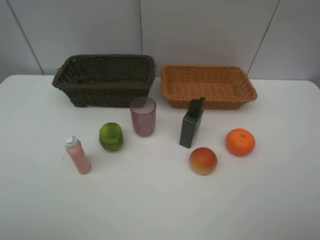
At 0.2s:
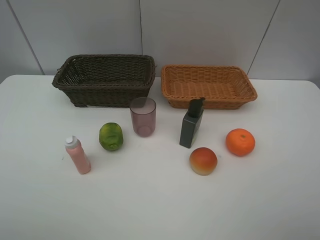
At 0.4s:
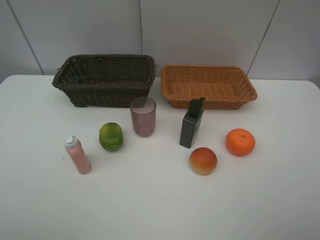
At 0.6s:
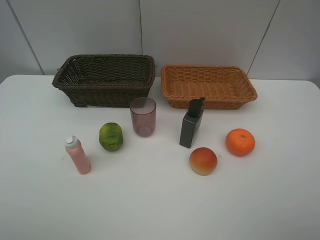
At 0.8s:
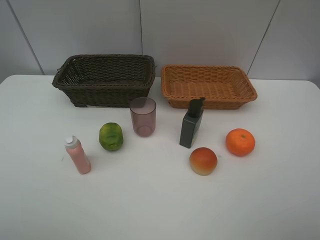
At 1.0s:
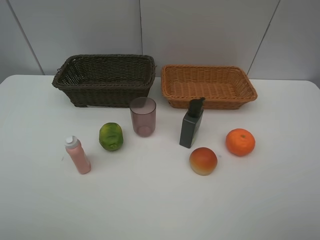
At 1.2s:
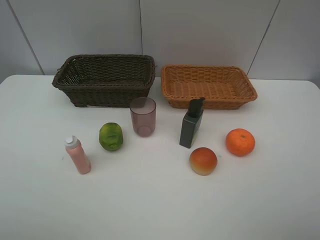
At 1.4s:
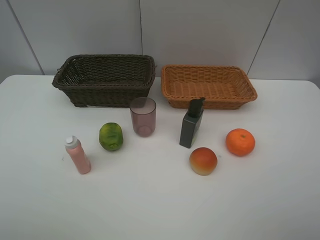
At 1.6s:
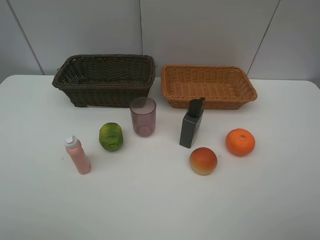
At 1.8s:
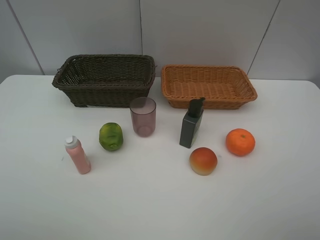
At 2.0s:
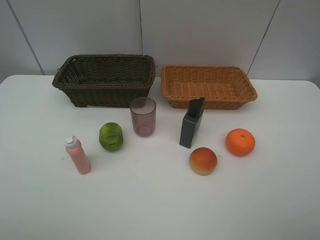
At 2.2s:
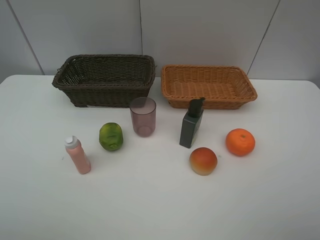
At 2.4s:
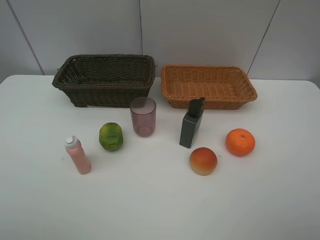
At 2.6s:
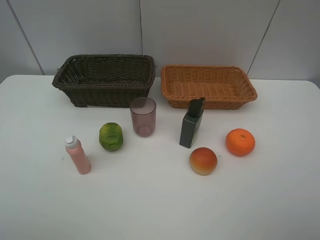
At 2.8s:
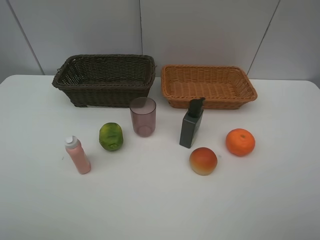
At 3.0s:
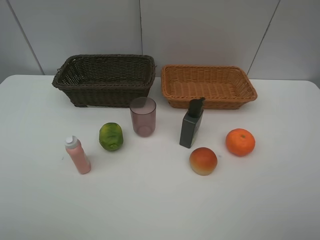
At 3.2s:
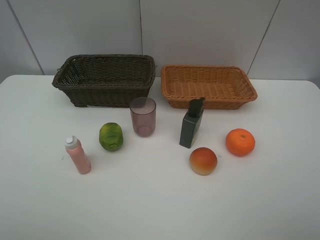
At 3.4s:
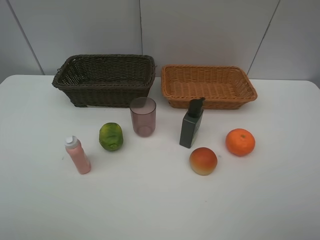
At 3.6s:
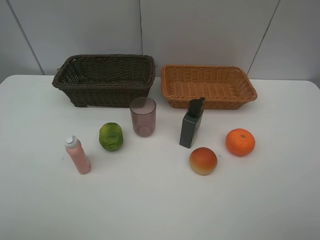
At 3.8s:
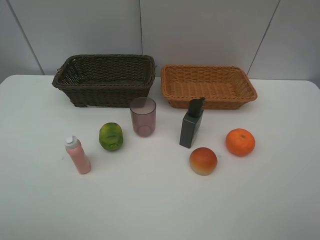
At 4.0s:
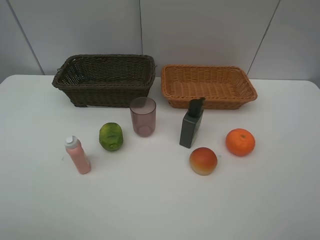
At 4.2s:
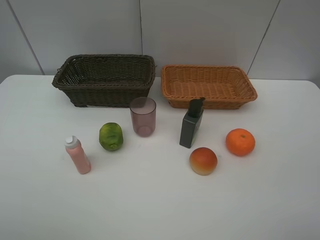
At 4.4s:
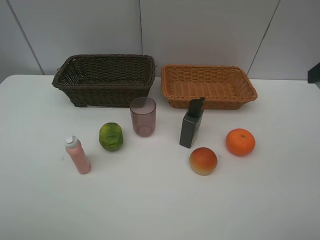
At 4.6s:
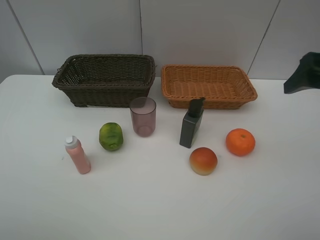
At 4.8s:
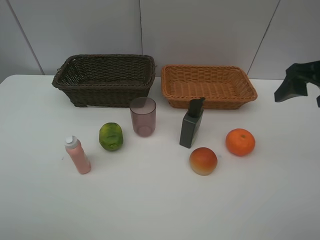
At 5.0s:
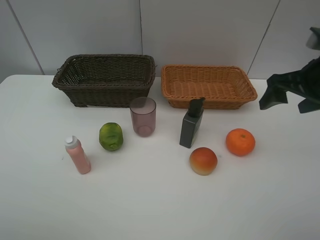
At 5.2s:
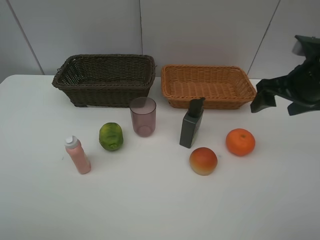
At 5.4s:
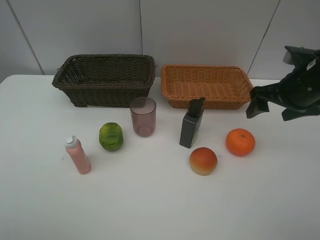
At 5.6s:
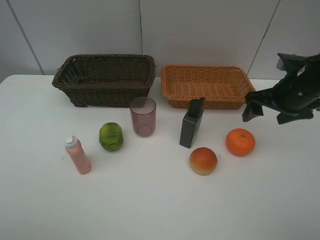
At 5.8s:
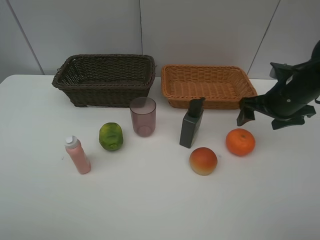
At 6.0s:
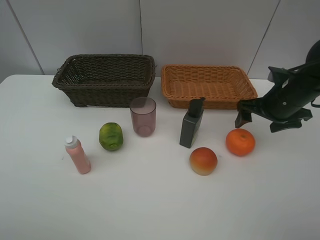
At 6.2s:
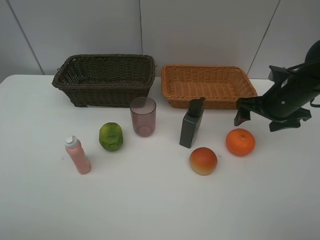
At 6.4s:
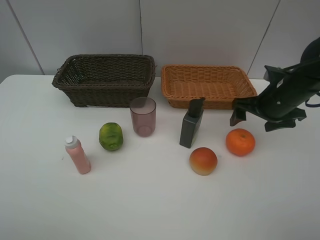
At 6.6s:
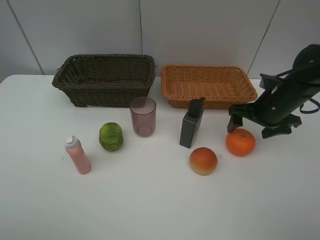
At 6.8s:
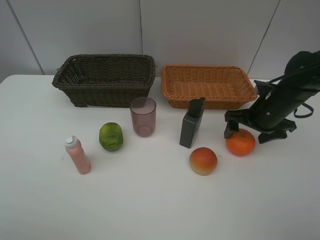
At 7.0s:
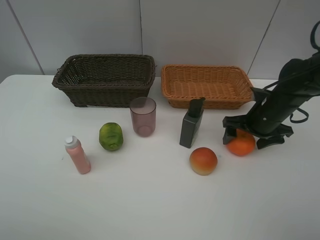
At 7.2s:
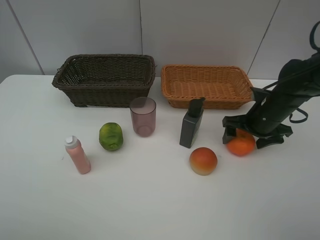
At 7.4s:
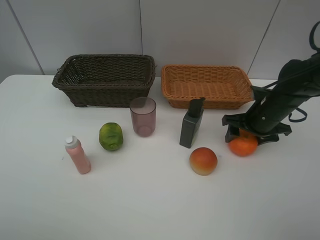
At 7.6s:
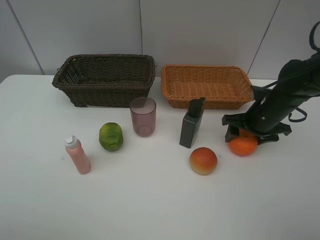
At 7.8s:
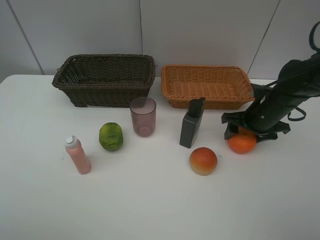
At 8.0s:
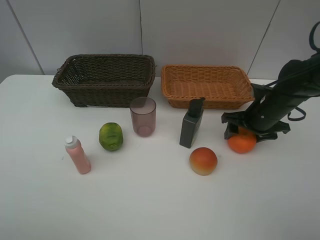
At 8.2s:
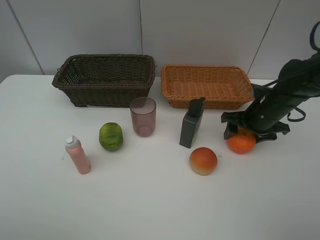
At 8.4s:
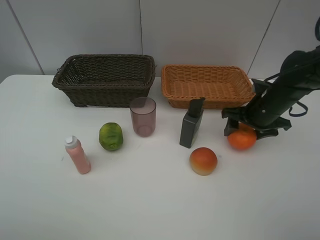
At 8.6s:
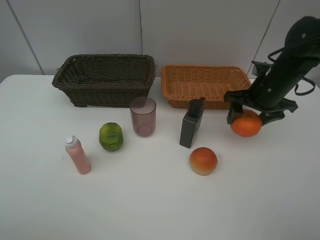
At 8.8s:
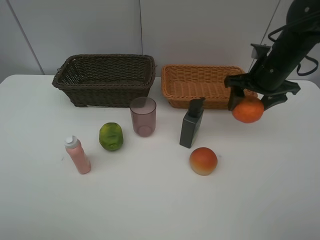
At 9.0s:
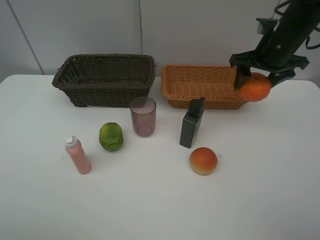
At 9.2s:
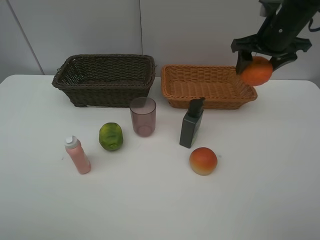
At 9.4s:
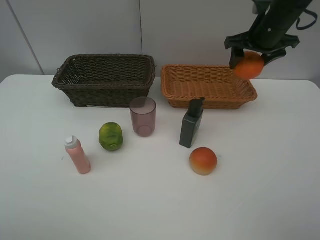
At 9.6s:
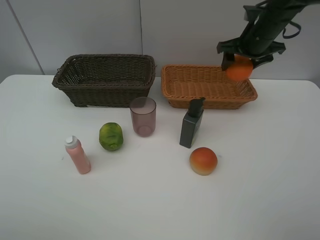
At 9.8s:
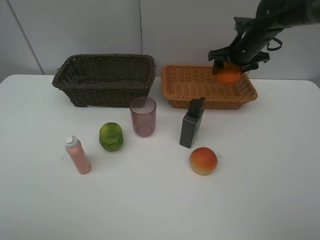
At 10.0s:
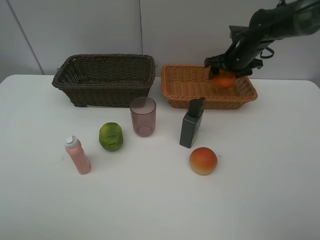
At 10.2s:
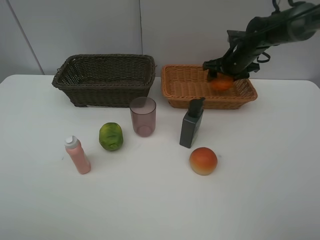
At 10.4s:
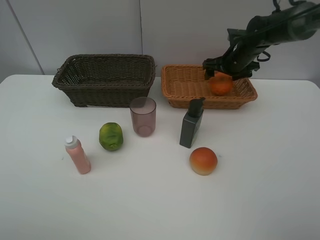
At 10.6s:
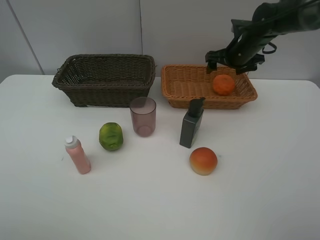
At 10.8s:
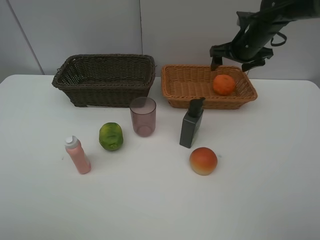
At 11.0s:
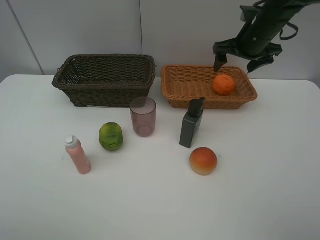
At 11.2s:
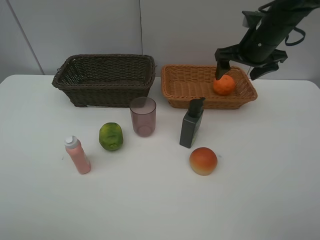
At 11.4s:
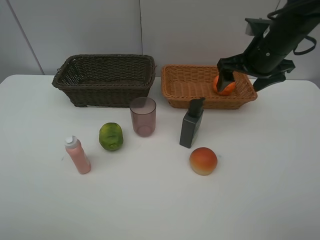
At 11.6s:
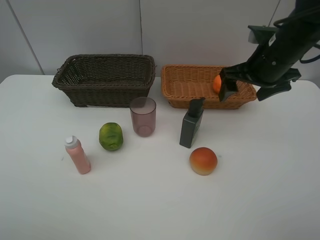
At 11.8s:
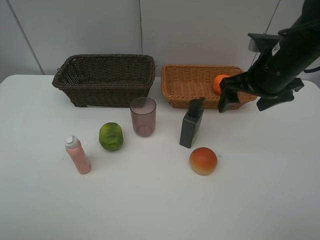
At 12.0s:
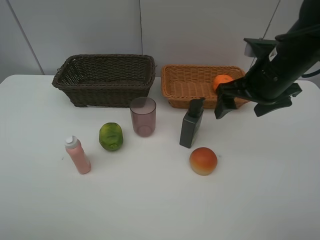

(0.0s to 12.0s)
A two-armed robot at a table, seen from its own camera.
Task of the whole recording: place multiple objects separately in different baskets.
0.0s - 3.0s: Both grippers stay put.
4.4s - 6.0s: The right gripper heads downward and forward, covering some 20 cm.
6.0s - 7.6s: The right gripper shifts by approximately 5 cm, and closes its fingers.
7.6s - 9.0s: The right gripper moves upward, about 15 cm.
9.0s - 10.4s: The right gripper heads forward and downward, covering approximately 15 cm.
10.4s - 12.0s: The right gripper goes about 20 cm backward.

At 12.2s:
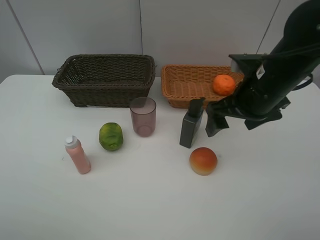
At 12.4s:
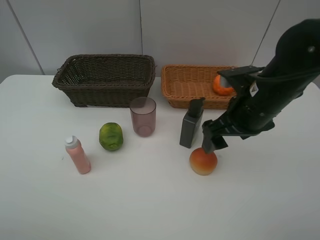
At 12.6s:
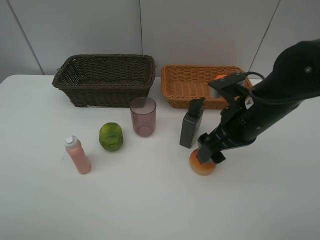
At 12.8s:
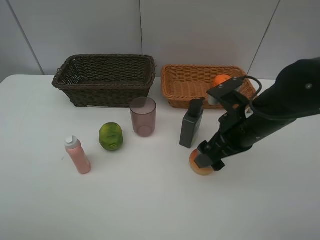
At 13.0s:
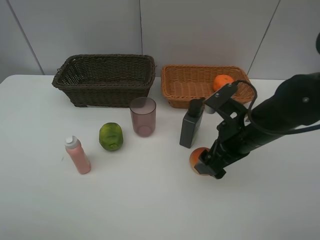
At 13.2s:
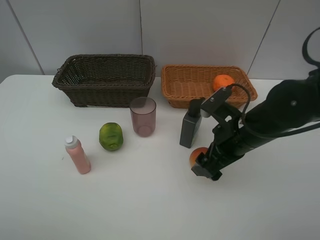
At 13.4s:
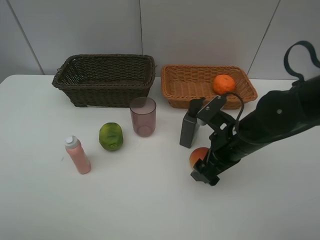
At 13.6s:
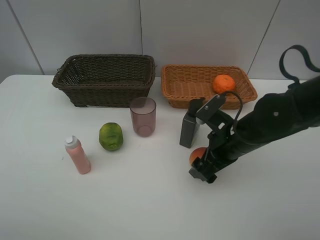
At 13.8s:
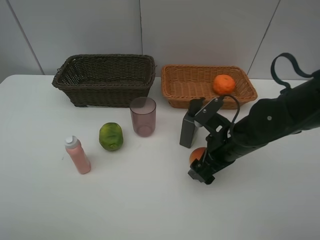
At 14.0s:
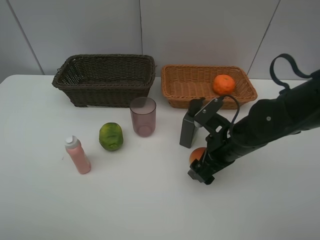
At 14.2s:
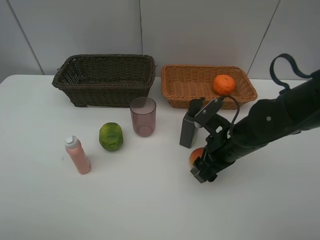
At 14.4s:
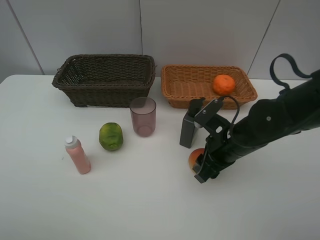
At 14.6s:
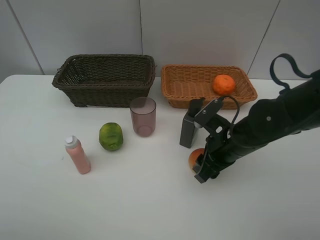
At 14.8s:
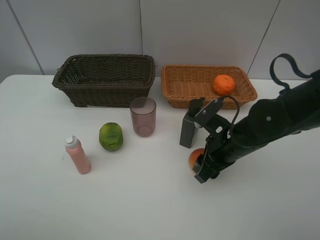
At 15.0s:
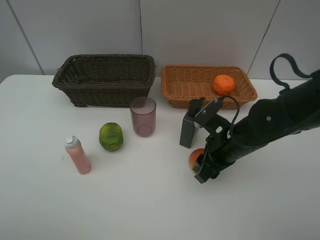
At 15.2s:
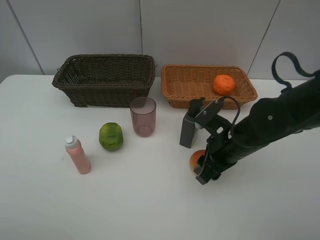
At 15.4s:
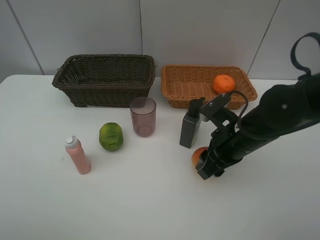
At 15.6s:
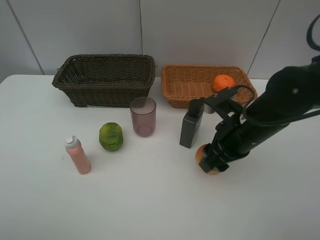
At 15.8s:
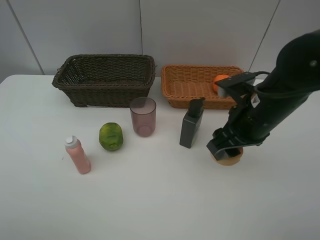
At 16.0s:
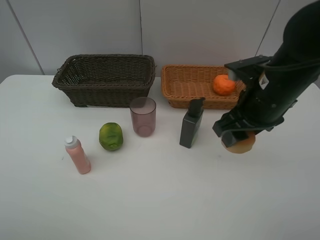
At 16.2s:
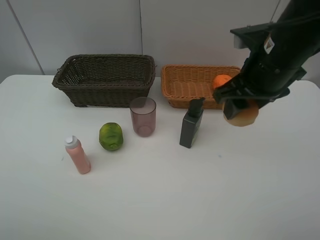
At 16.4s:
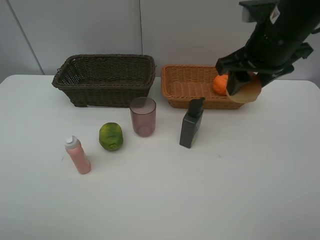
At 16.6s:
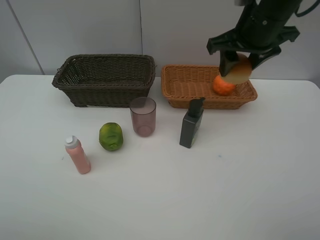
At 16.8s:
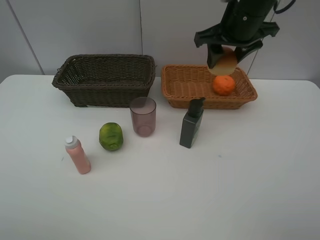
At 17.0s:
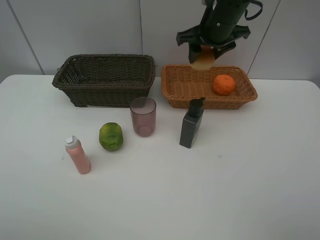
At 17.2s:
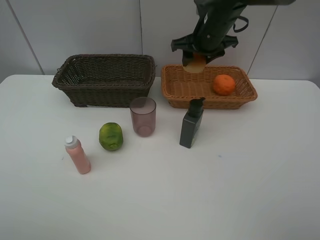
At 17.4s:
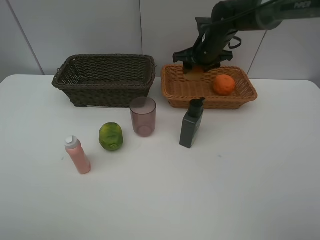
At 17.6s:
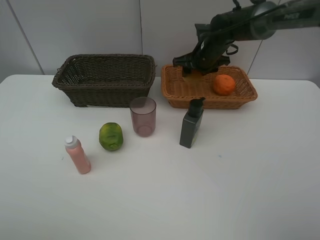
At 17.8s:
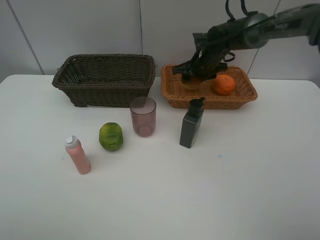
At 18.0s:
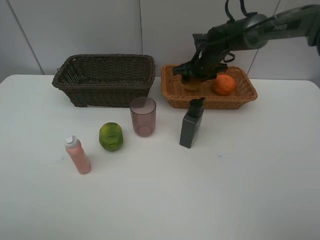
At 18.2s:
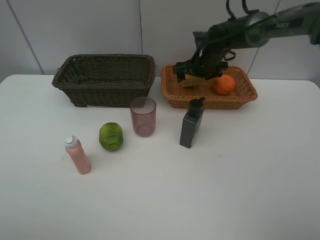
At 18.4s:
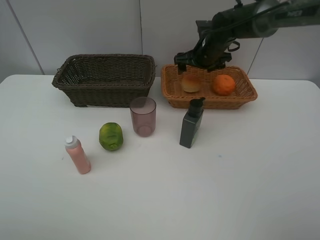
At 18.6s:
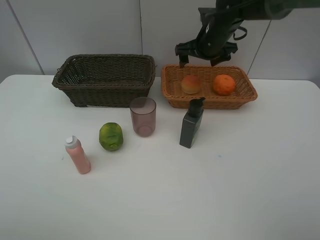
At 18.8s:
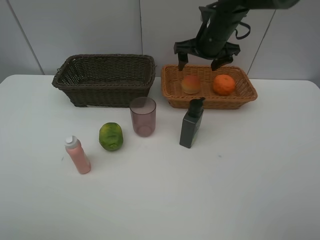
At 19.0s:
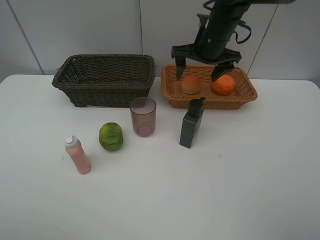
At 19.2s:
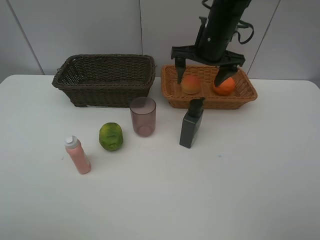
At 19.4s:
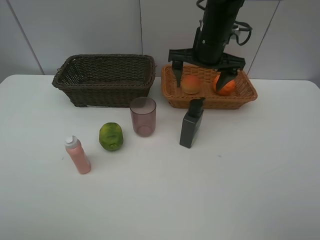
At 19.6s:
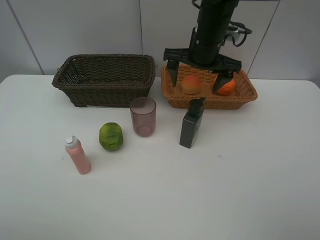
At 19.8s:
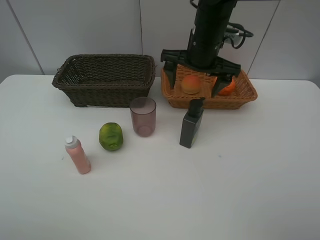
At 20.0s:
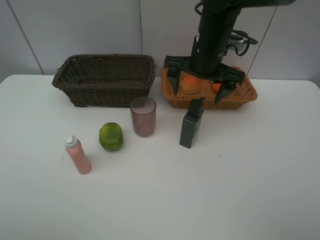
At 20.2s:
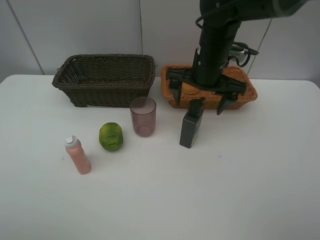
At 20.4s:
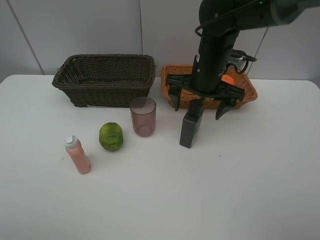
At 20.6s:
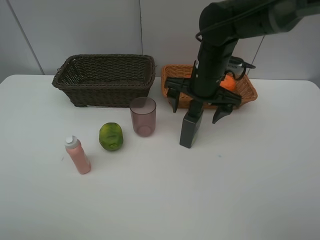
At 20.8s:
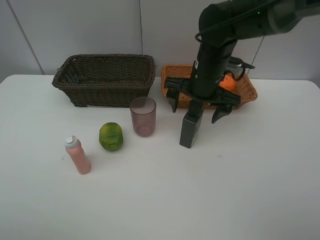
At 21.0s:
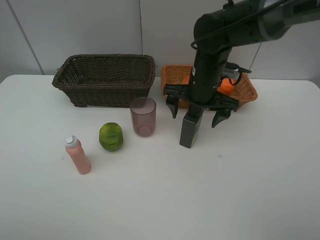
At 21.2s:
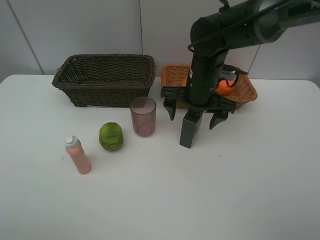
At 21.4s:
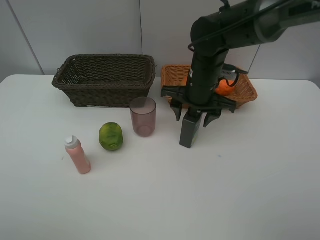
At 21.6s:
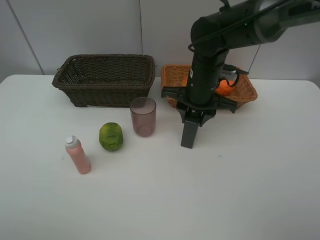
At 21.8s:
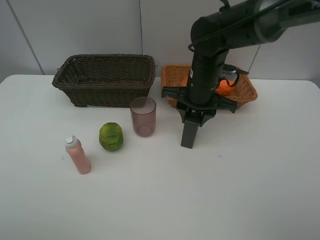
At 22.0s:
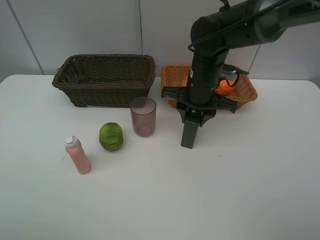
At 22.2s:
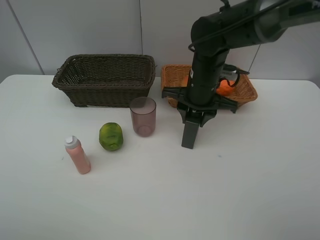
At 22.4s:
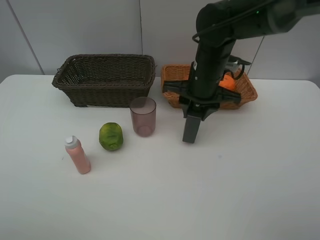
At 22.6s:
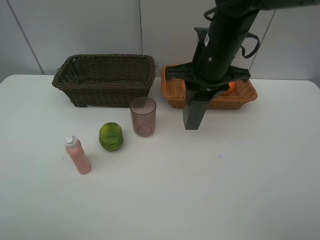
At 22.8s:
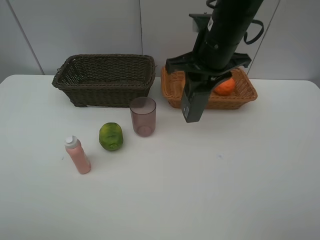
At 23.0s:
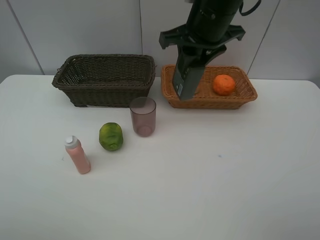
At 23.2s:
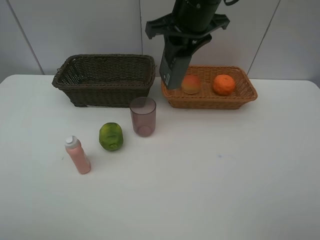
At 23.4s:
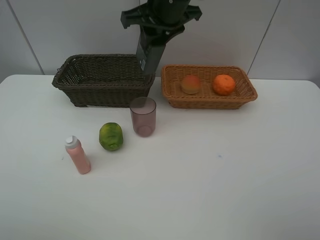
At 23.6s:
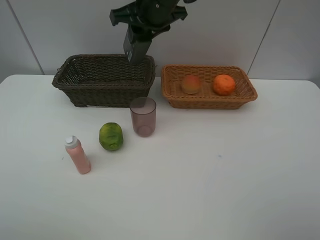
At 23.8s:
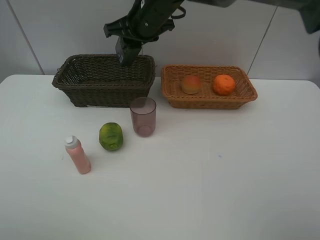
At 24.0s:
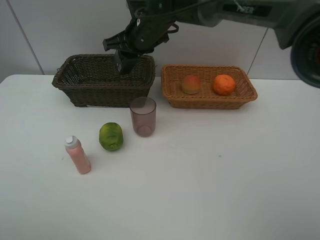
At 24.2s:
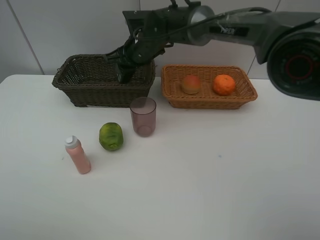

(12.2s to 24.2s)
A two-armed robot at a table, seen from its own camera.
Task of the whole recording: place multiple objects separately in different baskets.
12.2s - 13.8s: The right gripper goes roughly 10 cm downward.
13.8s - 15.2s: The right gripper closes its fingers.
15.2s - 16.6s: The right gripper moves upward and forward, some 20 cm.
16.6s - 18.2s: The right gripper is displaced downward and forward by roughly 20 cm, and opens.
18.2s - 19.8s: The right gripper is displaced backward and upward by approximately 15 cm.
19.8s - 21.2s: The right gripper heads downward, covering approximately 5 cm.
21.2s - 22.6s: The right gripper goes some 10 cm upward, and closes.
22.6s - 24.2s: The right gripper moves to the left, forward and downward, about 20 cm.
